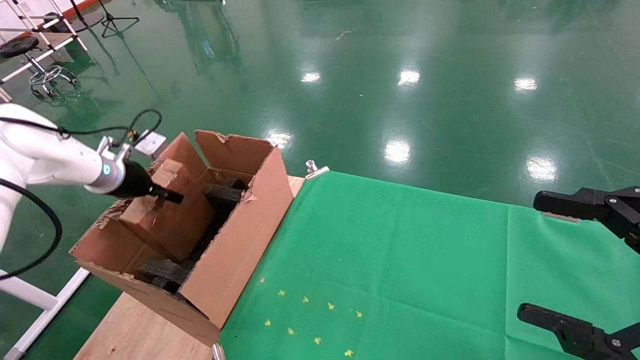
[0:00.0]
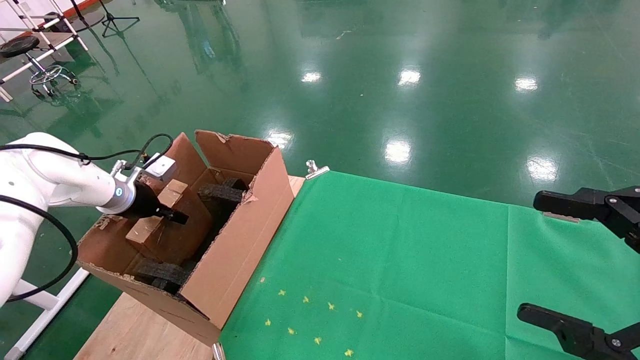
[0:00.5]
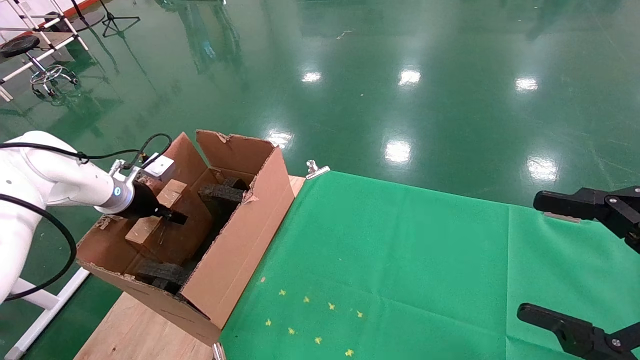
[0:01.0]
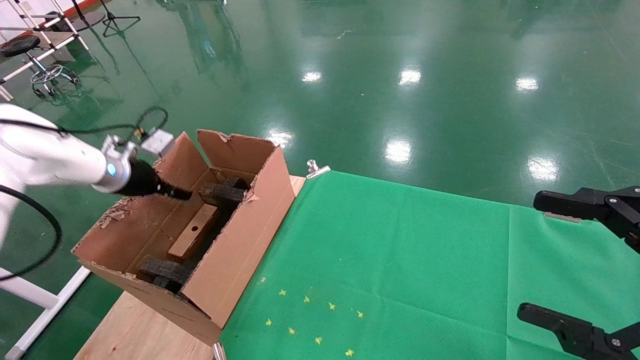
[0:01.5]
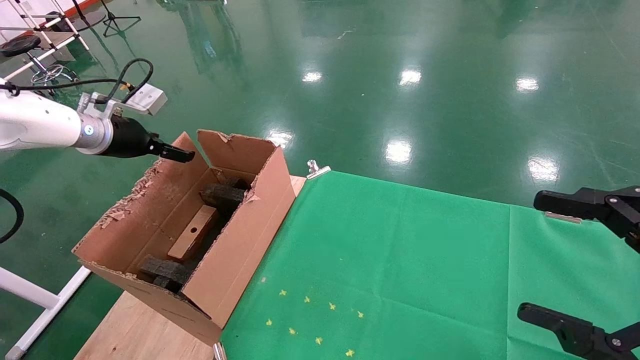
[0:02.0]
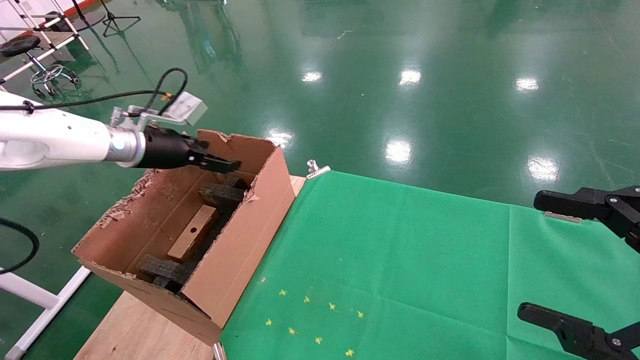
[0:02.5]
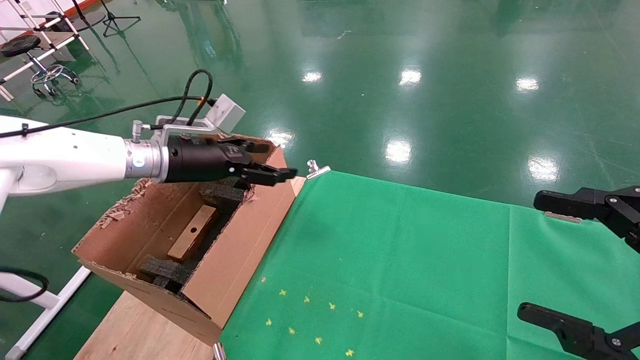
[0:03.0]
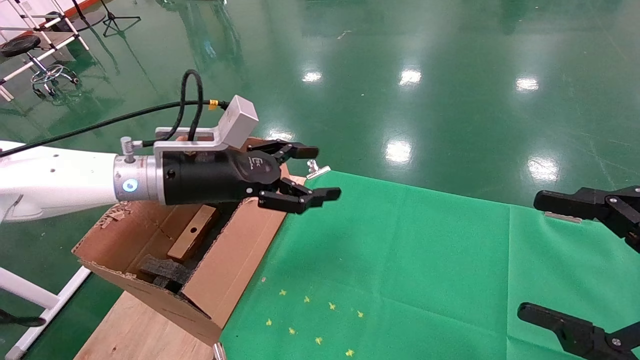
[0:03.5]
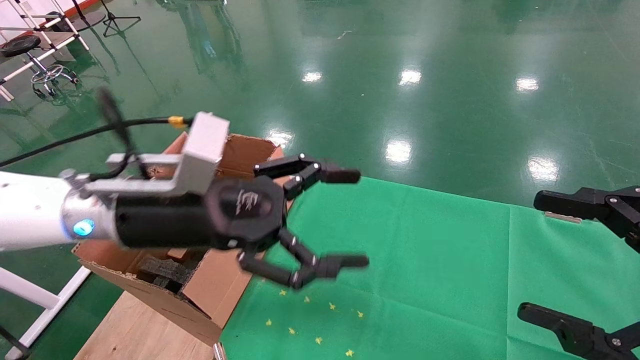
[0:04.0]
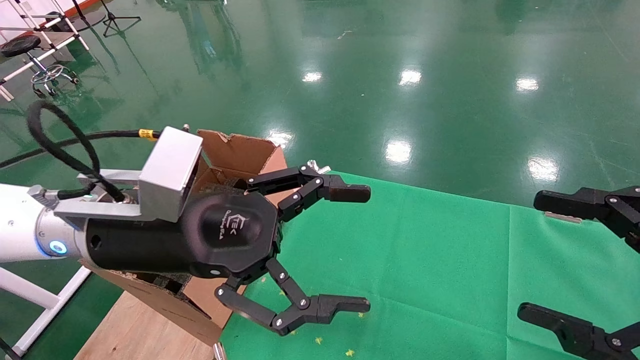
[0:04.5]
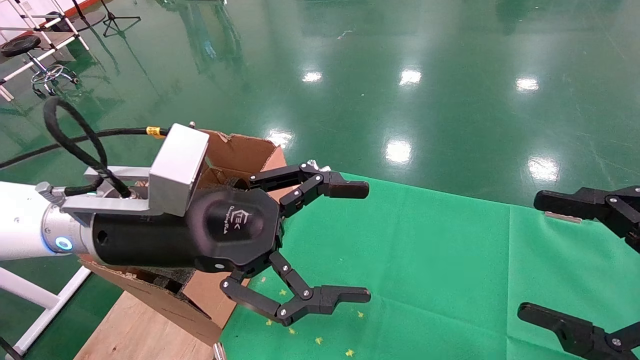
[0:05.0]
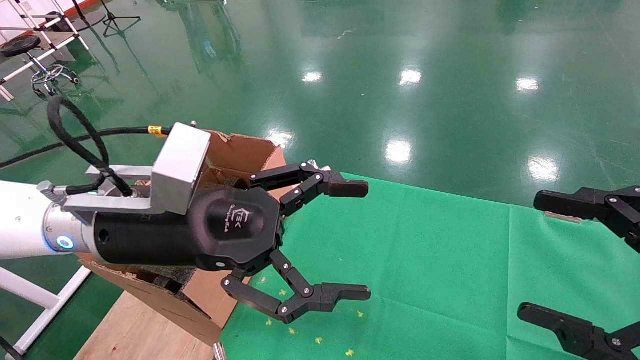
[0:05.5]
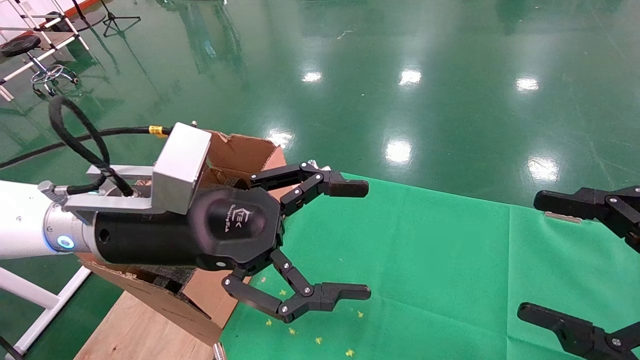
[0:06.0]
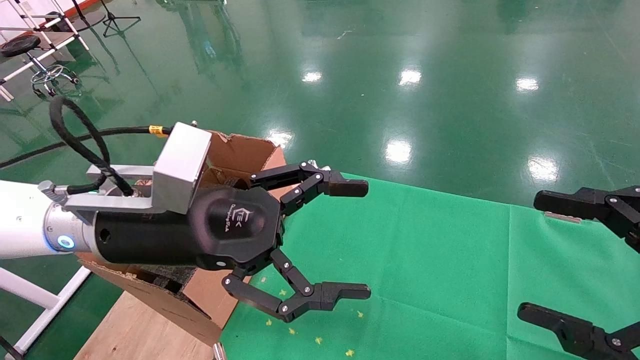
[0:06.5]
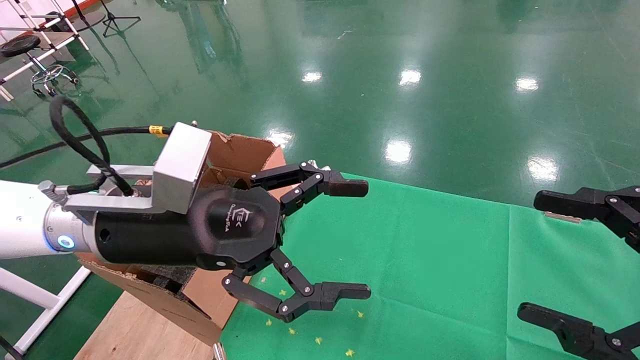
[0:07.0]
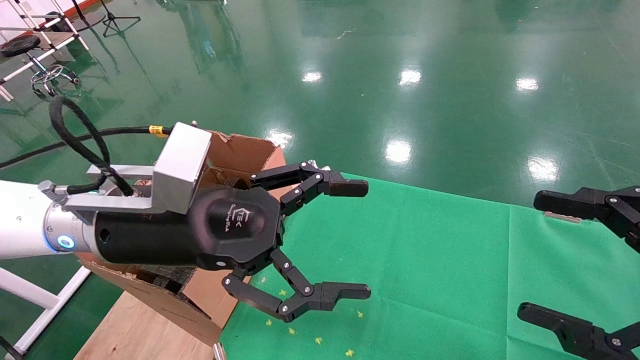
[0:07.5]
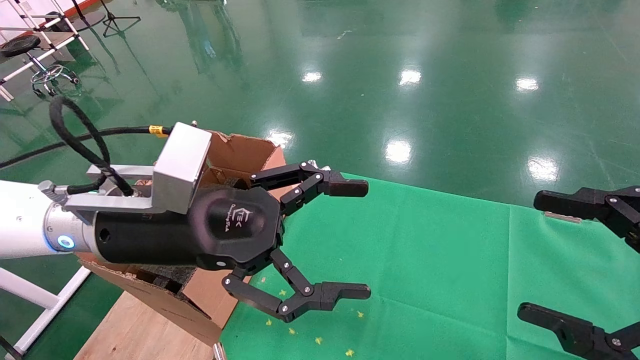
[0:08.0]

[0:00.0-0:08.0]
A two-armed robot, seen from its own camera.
Task of the whole recording: using a robotic arm to pick up a cardboard box and palace it the carton.
0:00.0 to 0:02.0: The left gripper travels upward by roughly 5 cm, and opens.
0:02.0 to 0:04.0: The left gripper shifts about 30 cm to the right and backward.
0:04.0 to 0:06.0: There are only small adjustments of the grippers.
0:06.0 to 0:08.0: Both grippers stay put.
